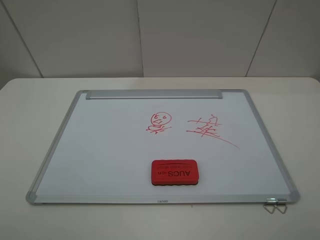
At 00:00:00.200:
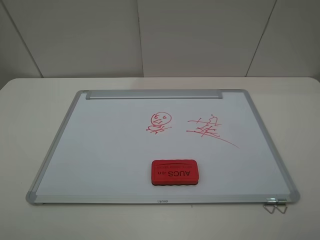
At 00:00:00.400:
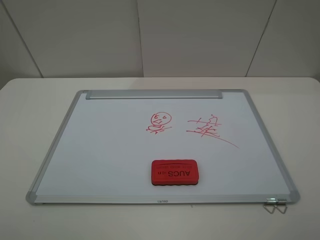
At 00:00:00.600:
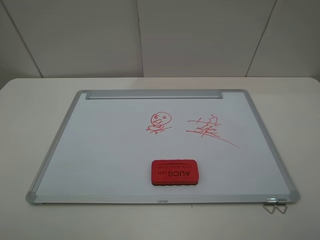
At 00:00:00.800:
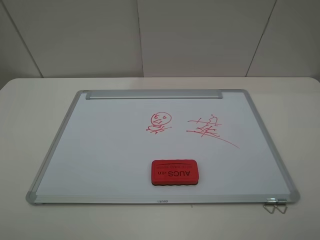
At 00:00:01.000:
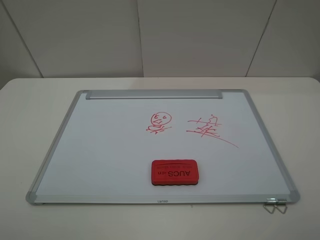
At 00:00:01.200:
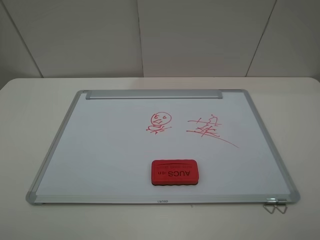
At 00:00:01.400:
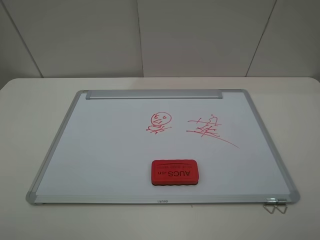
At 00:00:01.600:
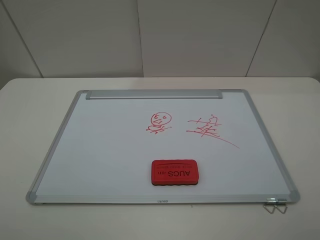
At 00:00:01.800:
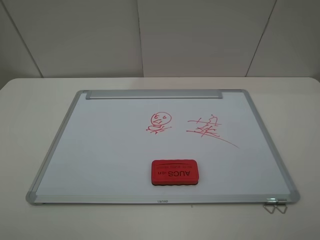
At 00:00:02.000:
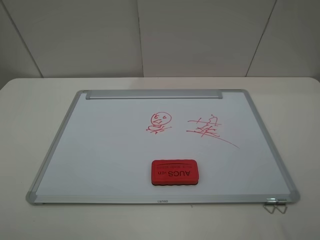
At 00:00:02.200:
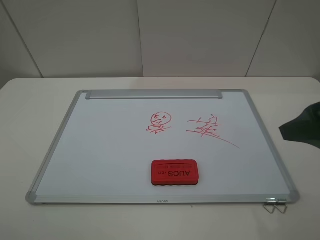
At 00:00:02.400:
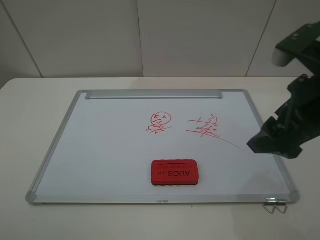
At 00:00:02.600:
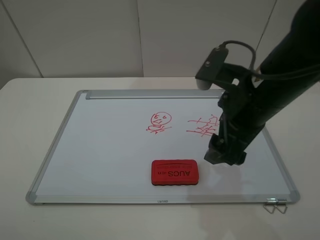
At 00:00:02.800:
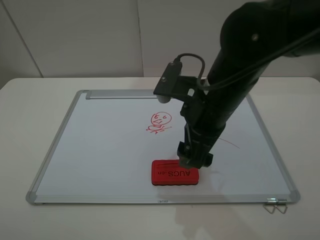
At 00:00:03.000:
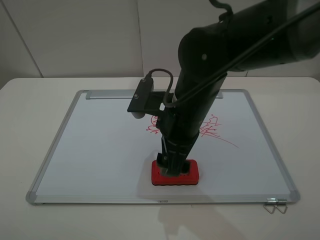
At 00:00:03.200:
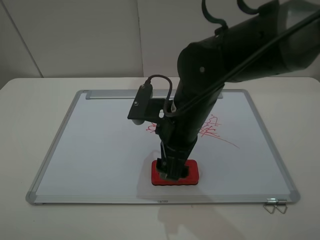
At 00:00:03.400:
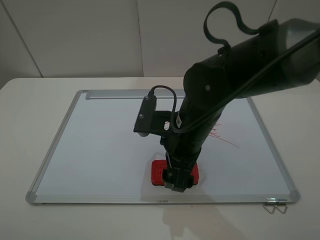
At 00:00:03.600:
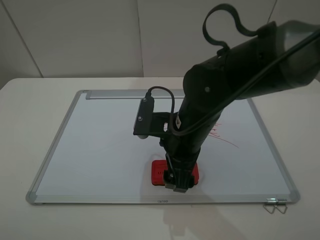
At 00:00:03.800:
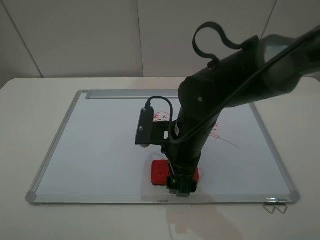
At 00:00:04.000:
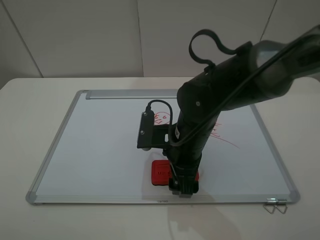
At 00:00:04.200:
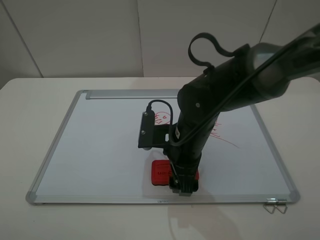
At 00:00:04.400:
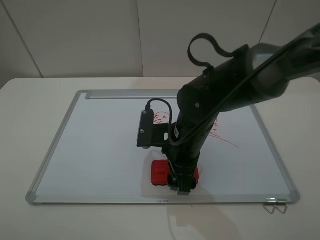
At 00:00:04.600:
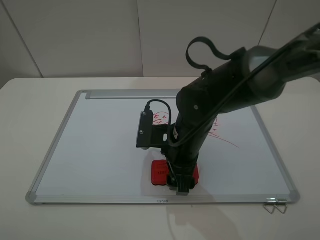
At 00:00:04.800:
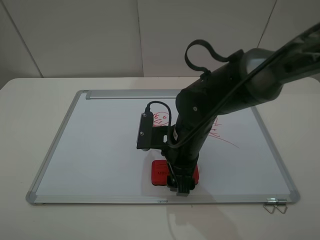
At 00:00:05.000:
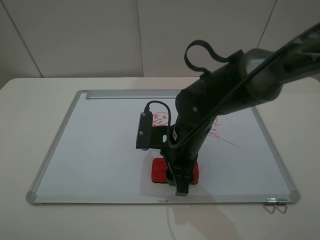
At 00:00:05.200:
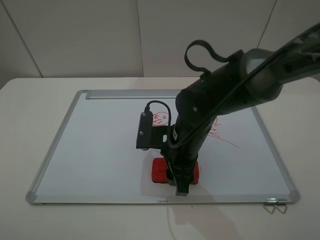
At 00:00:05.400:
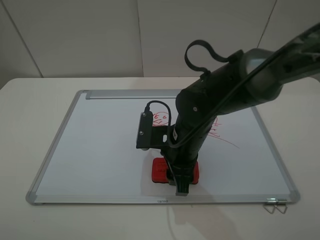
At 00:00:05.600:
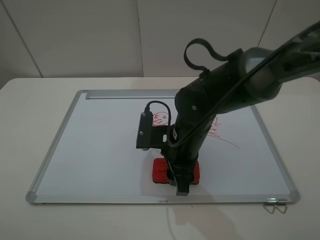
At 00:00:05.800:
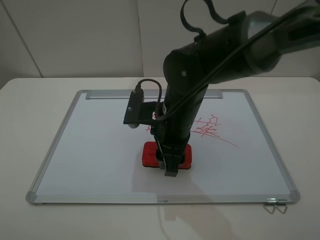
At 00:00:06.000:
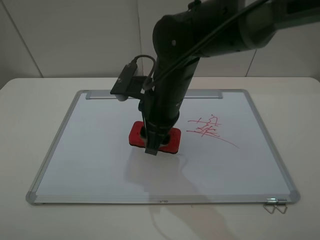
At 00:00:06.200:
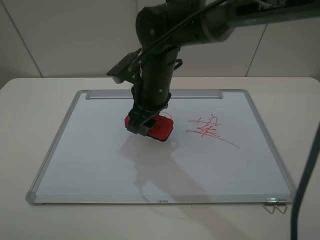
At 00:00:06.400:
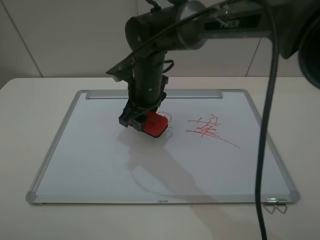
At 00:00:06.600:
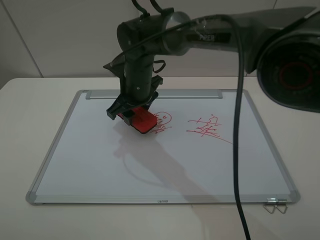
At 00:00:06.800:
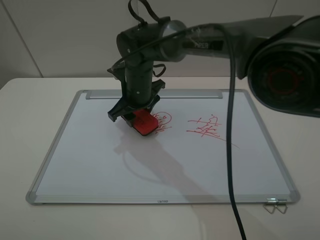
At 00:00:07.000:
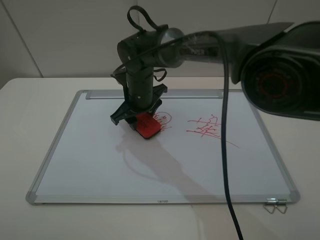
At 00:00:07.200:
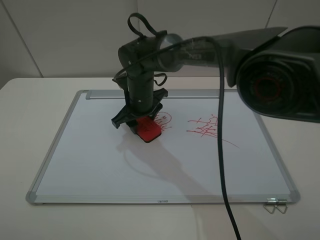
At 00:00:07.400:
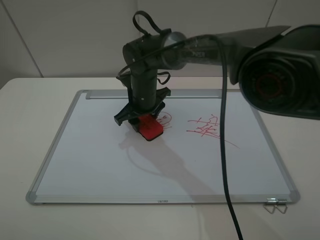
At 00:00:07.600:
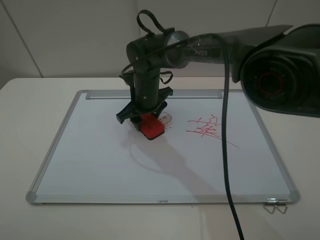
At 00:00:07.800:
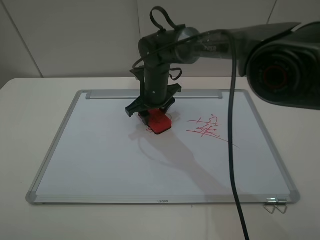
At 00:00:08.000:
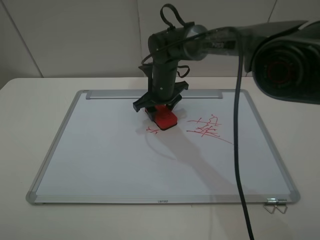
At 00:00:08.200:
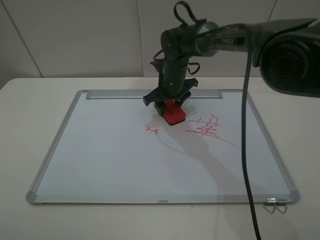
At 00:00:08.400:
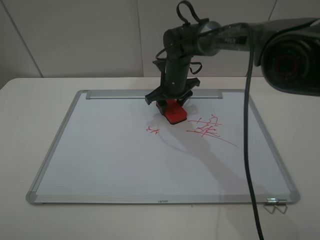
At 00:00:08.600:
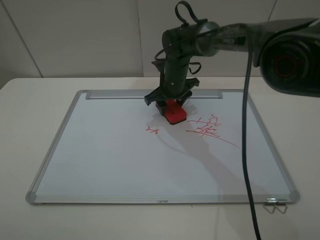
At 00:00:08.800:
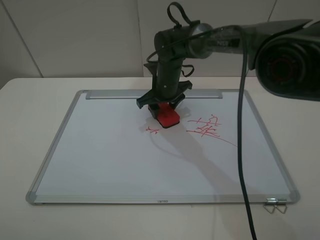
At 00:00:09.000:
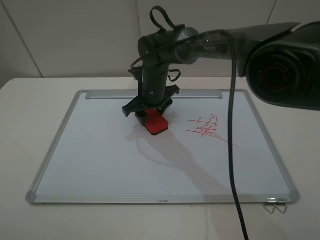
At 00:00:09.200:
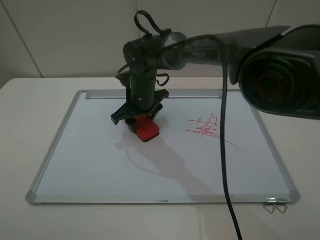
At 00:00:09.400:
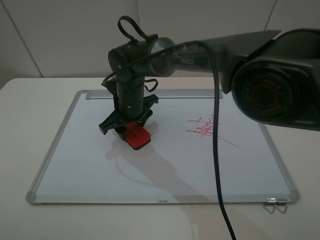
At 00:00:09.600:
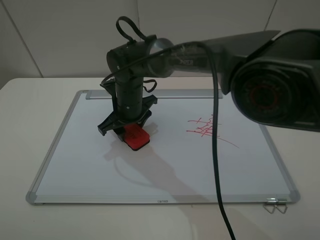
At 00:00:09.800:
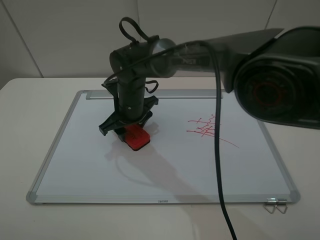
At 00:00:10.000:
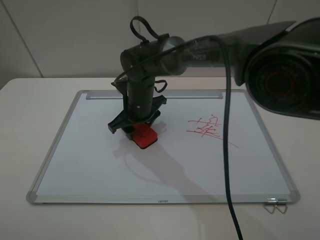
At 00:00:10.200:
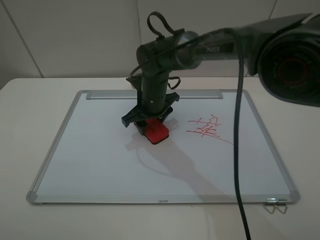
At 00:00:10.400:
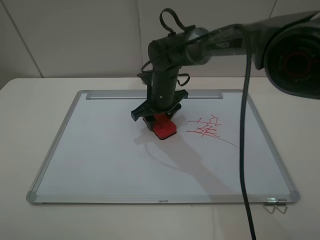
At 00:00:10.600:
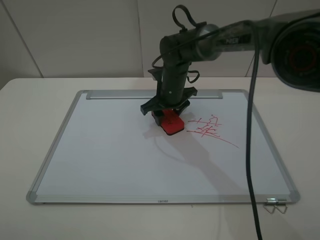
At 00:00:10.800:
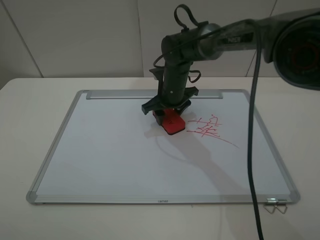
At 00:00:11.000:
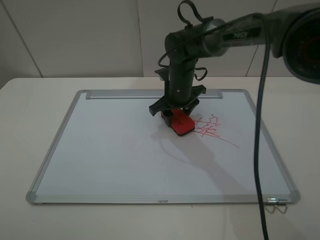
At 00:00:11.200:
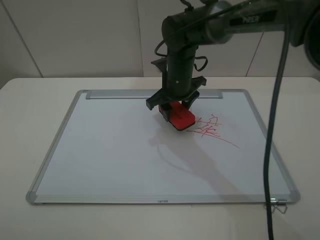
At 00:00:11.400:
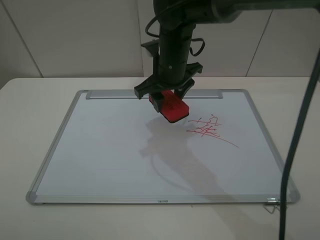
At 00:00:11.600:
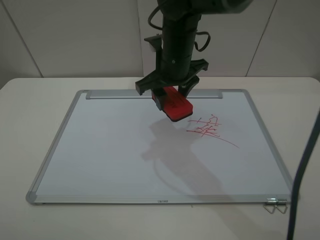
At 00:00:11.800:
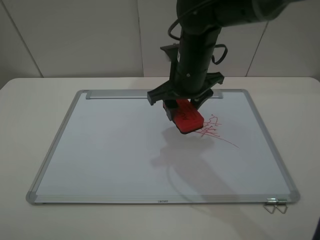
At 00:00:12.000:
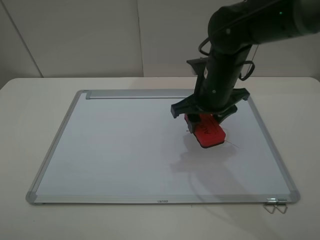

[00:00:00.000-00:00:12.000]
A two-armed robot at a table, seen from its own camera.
Step, 00:00:00.000 to 00:00:05.000: Grasp the eraser with the right gripper.
Step, 00:00:05.200 to 00:00:11.200: Grasp the eraser and wipe the blackboard with the right gripper.
00:00:00.000 to 00:00:01.600: Neither gripper changes place.
00:00:01.600 to 00:00:03.000: The right gripper heads to the left, forward and downward, covering about 35 cm.
00:00:03.000 to 00:00:04.400: The right gripper heads downward, covering about 5 cm.
00:00:04.400 to 00:00:06.000: The right gripper moves upward, some 5 cm, and closes.
00:00:06.000 to 00:00:07.600: The right gripper shifts roughly 15 cm forward and downward.
00:00:10.400 to 00:00:12.000: The right gripper is displaced upward, to the right and backward by roughly 15 cm.

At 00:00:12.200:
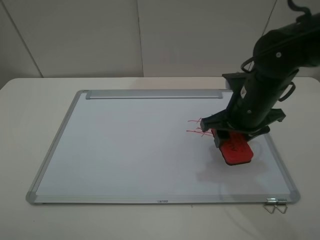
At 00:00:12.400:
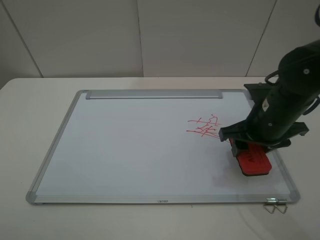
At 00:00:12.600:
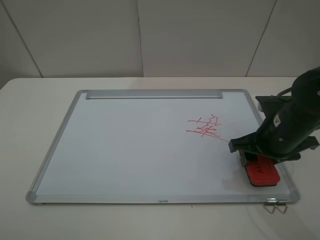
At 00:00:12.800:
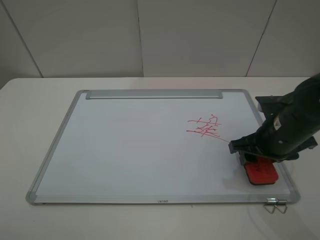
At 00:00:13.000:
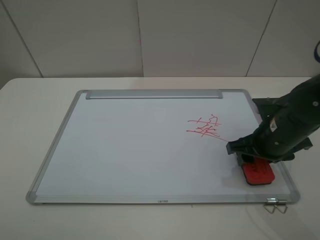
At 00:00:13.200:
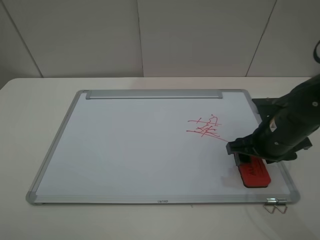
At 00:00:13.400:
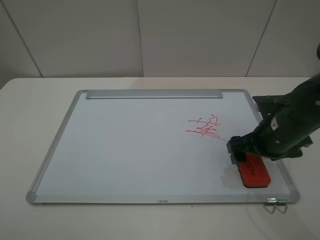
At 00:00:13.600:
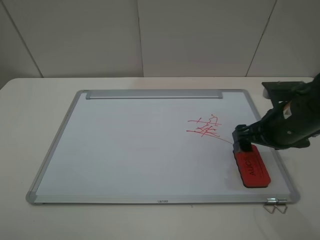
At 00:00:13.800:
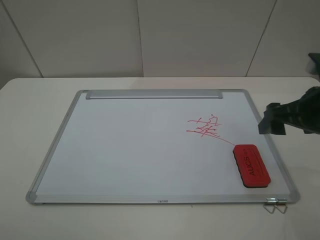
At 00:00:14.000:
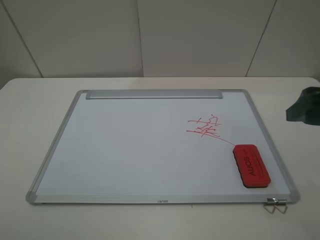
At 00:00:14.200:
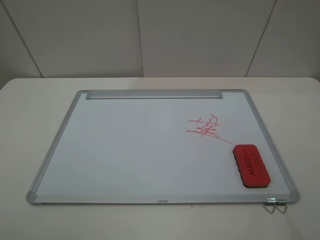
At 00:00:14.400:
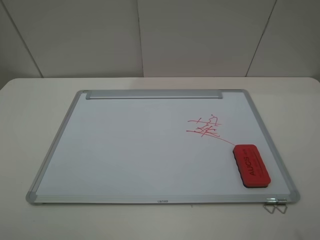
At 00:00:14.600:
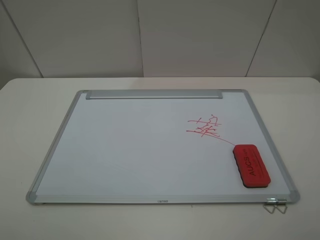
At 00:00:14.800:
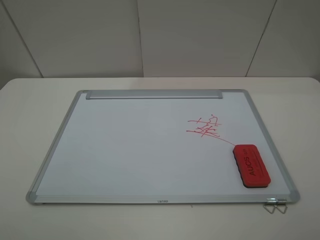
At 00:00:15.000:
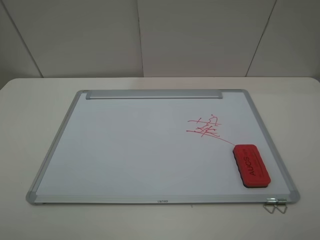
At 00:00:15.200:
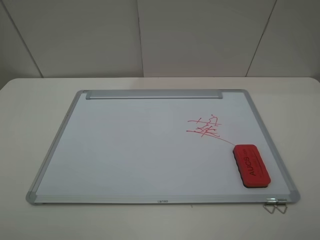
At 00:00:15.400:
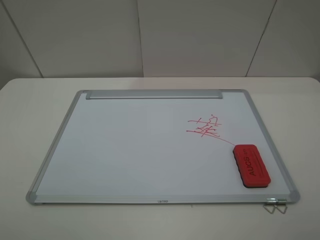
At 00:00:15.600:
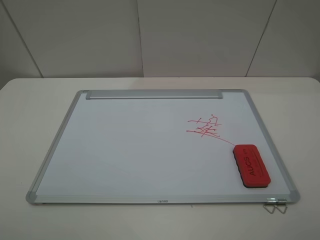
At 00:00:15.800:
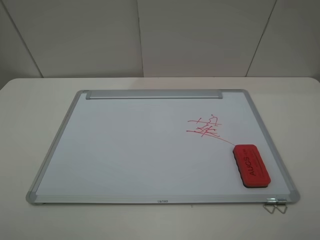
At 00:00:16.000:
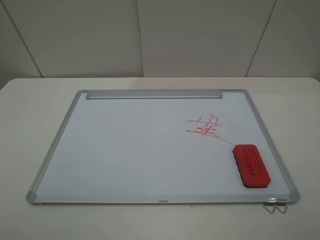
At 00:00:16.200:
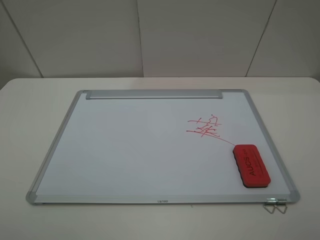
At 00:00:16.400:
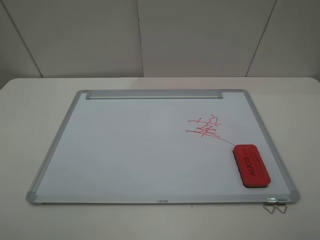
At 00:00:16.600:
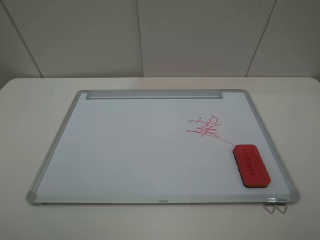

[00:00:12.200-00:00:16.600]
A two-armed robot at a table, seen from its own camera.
Step, 00:00:12.200 to 00:00:13.600: Place the eraser with the right gripper.
00:00:12.200 to 00:00:13.600: The right gripper travels to the right by some 5 cm, and opens its fingers.
00:00:13.600 to 00:00:15.200: The right gripper travels backward and upward by roughly 25 cm.
00:00:15.200 to 00:00:16.600: The two grippers keep their place.
